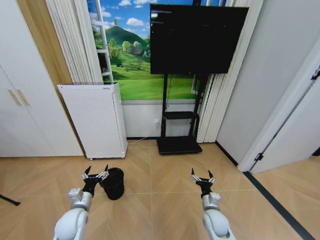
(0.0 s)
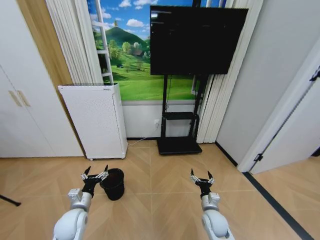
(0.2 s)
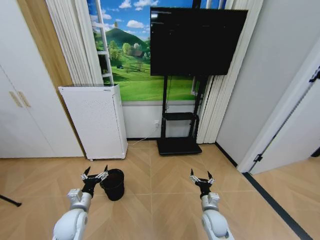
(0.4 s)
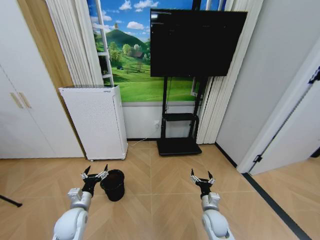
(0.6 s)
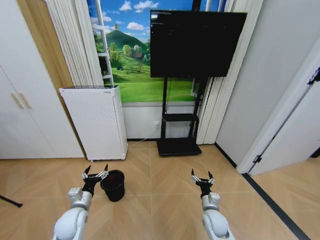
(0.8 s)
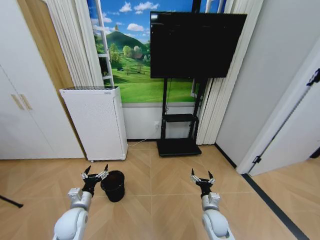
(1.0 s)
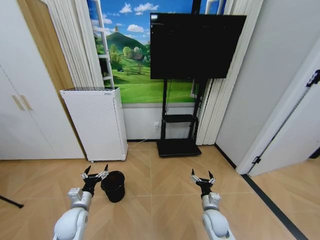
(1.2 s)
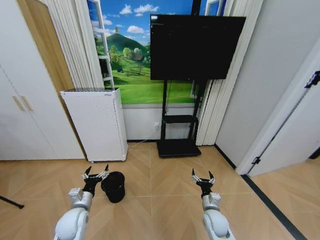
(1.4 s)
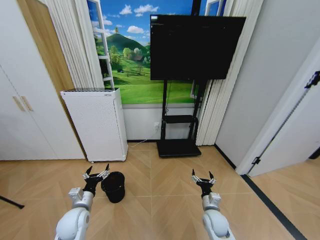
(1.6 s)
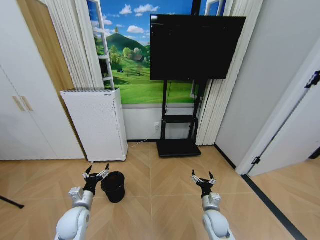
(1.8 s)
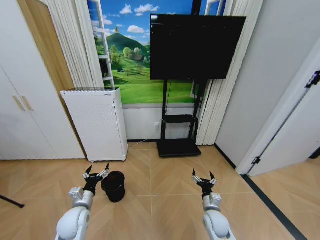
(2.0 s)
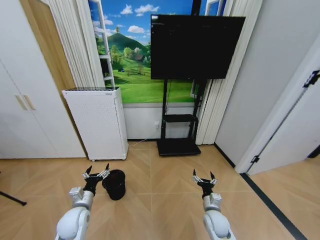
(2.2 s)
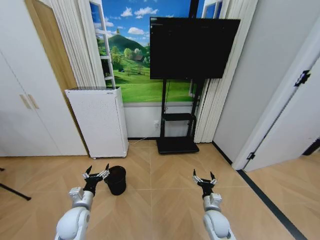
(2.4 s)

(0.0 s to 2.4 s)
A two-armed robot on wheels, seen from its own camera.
Task of the whole recording: Pick up the trash bin and place the garbage on the floor into it.
0.0 s - 2.4 s: Both grippers stay about where they are.

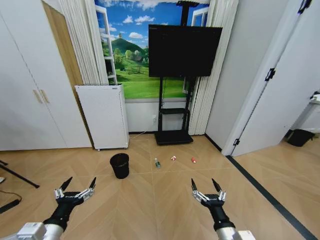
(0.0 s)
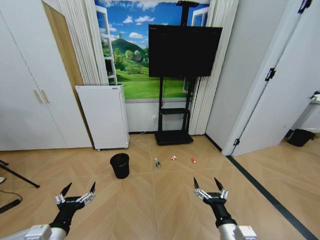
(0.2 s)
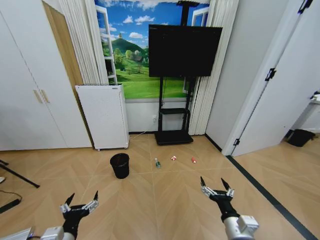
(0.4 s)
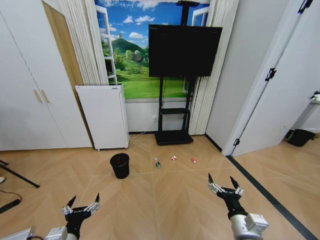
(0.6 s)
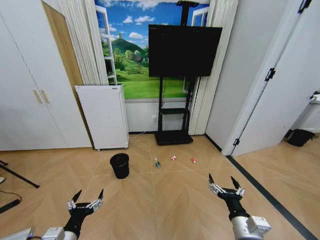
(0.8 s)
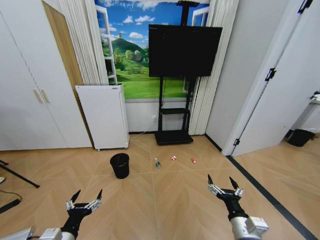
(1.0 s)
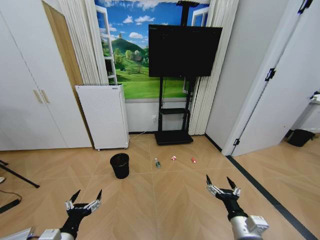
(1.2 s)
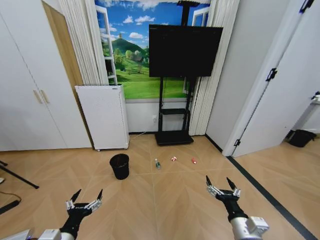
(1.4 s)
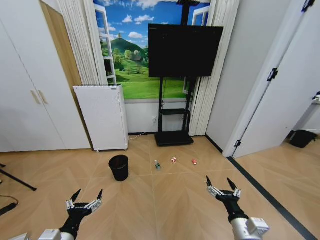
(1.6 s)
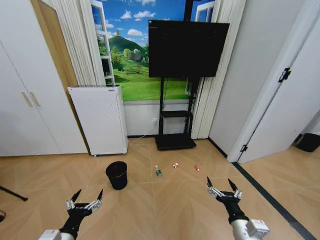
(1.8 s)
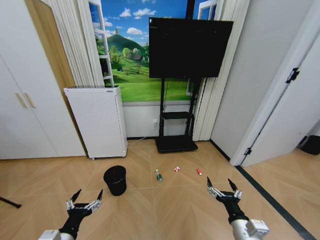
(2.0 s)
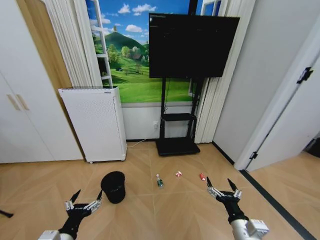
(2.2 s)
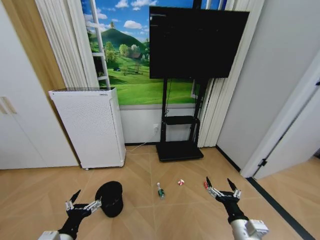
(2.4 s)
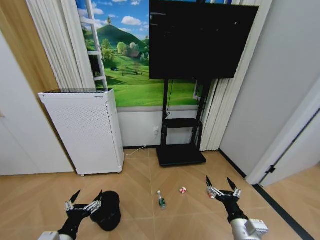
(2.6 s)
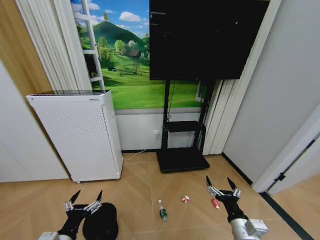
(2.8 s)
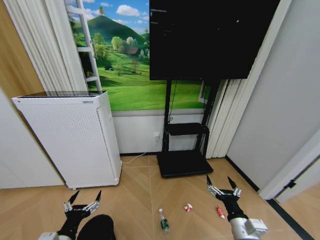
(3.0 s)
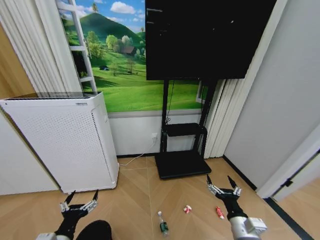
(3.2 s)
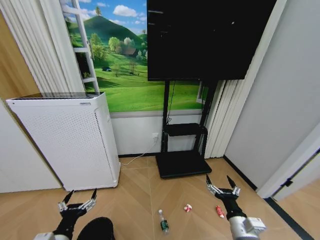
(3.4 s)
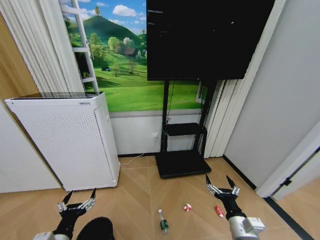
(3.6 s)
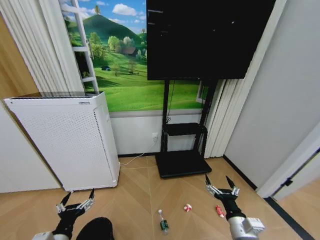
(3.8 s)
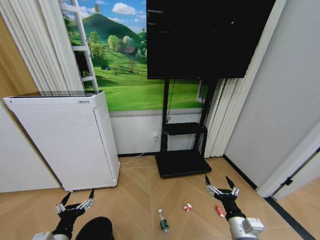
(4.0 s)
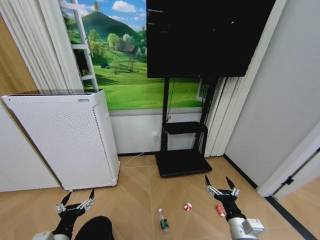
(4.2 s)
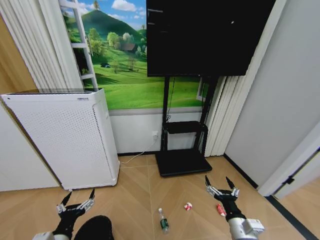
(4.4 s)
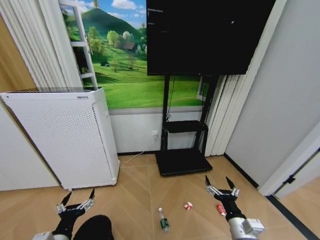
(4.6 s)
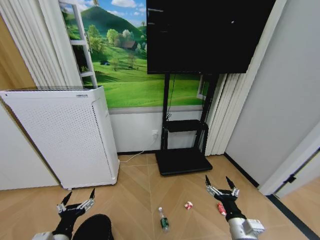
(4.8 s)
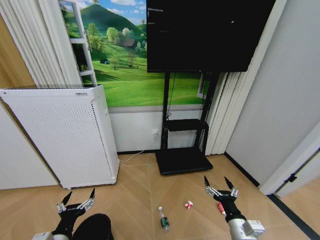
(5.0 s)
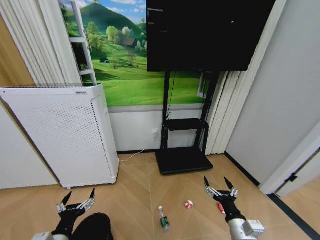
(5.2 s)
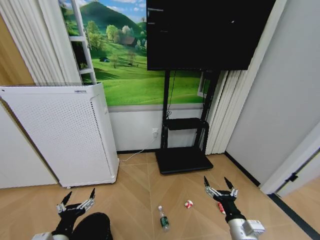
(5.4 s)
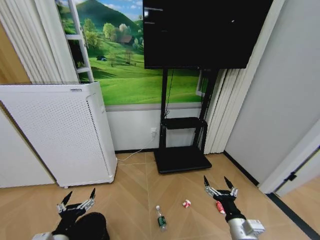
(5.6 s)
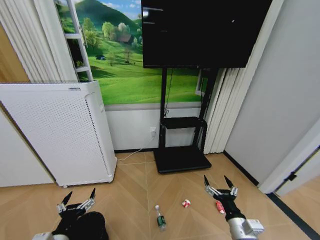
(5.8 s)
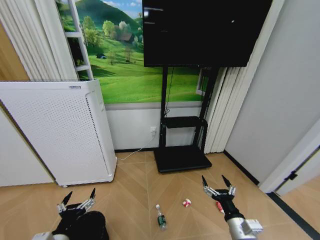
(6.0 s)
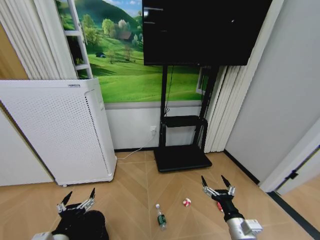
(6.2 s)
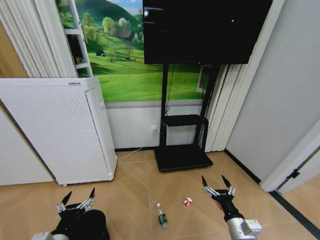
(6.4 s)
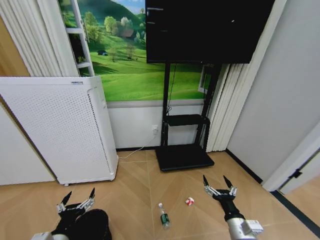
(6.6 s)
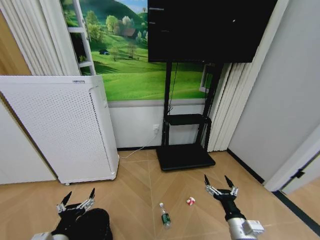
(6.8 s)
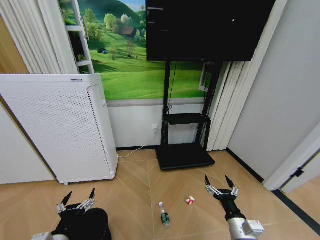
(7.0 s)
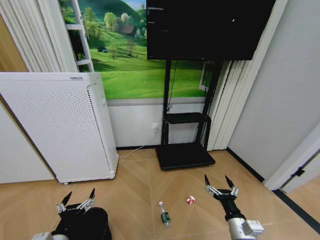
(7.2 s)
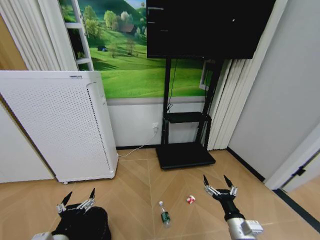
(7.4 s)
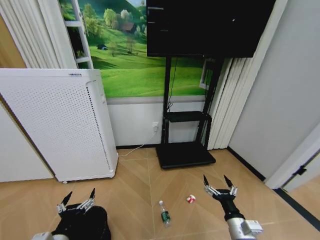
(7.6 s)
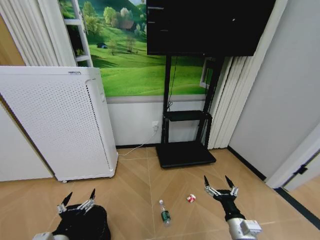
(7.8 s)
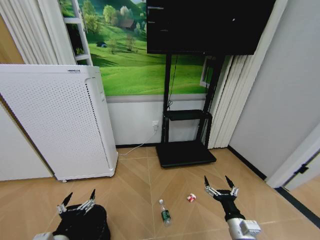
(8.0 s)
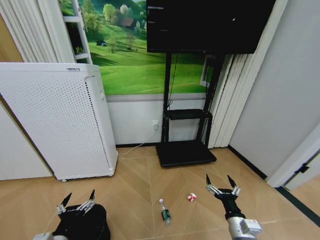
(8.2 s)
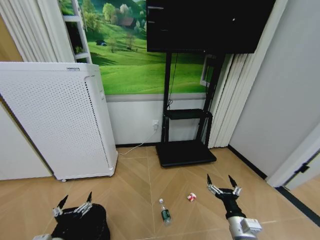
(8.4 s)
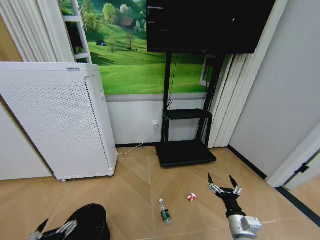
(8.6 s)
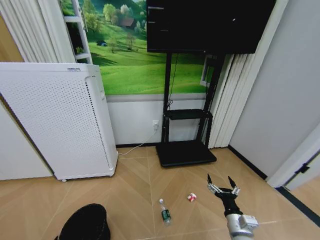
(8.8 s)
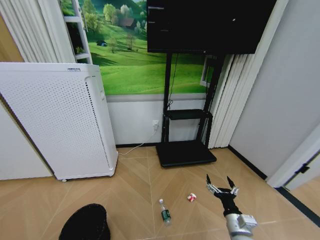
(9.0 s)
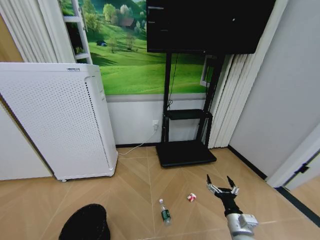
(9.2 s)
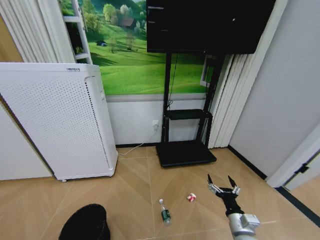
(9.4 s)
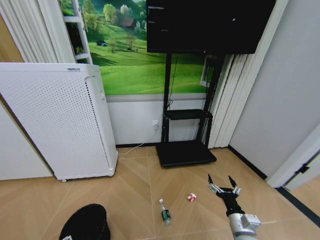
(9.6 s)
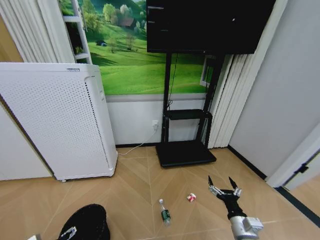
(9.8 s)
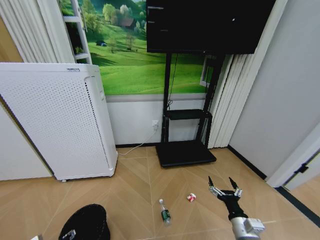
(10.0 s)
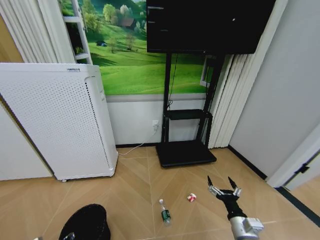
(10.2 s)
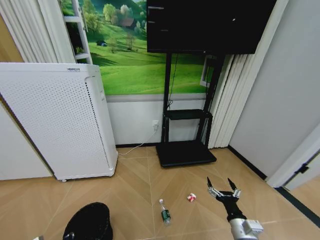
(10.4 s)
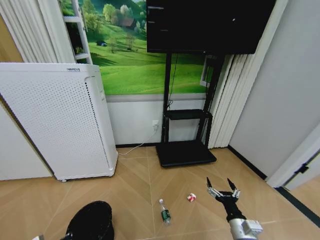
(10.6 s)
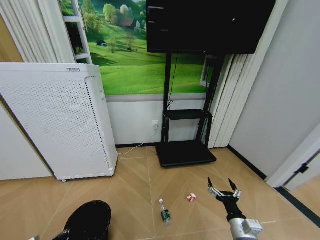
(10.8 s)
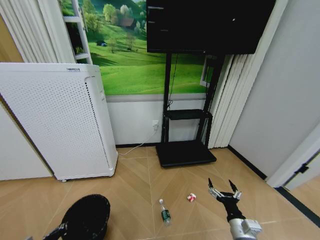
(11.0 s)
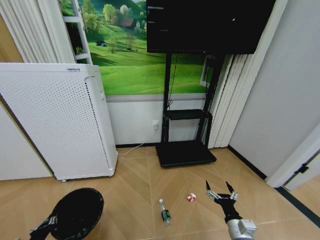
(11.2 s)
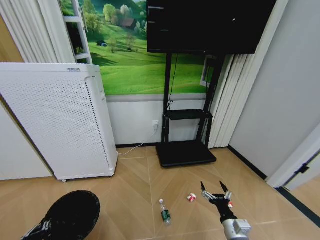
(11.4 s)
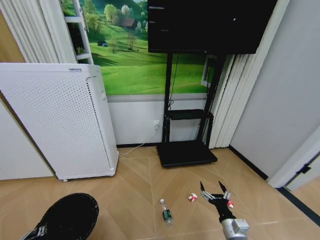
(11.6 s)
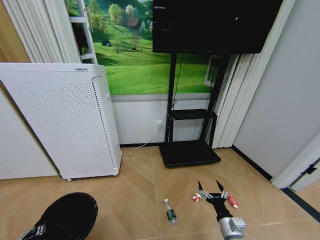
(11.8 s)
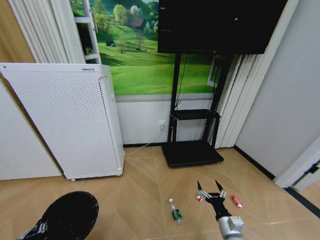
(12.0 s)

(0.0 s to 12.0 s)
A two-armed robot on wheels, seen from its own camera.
Task of the whole recording: Pick up the trash bin and place the garbage on the floor into it.
3.0 s - 4.4 s: The grippers stay close to where they were, moving slightly.
7.6 s - 9.0 s: The left gripper travels backward and to the left by approximately 10 cm.
9.0 s - 10.4 s: The left gripper goes some 15 cm forward and downward, and closes its fingers.
10.4 s - 12.0 s: The right gripper changes place by approximately 5 cm. Meanwhile the left gripper travels upward and backward by approximately 10 cm.

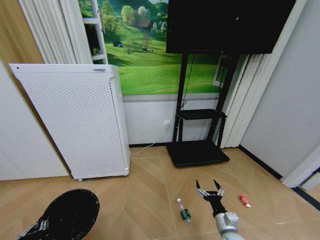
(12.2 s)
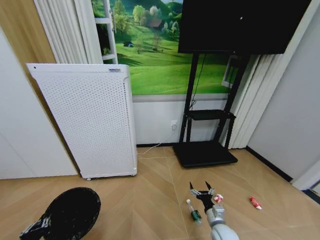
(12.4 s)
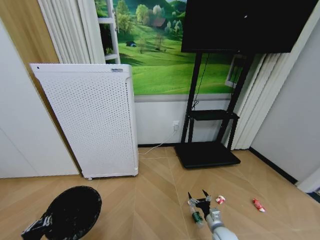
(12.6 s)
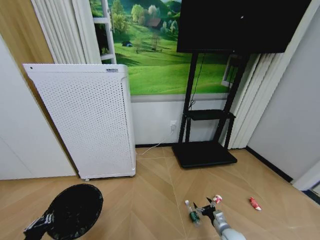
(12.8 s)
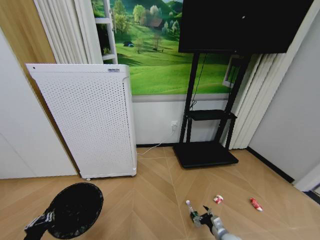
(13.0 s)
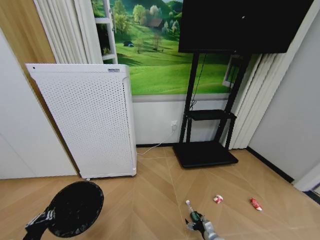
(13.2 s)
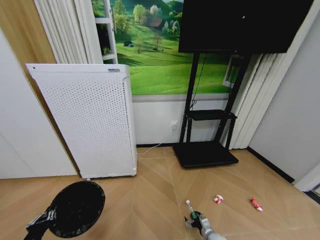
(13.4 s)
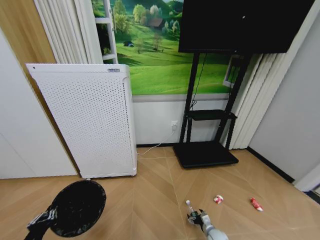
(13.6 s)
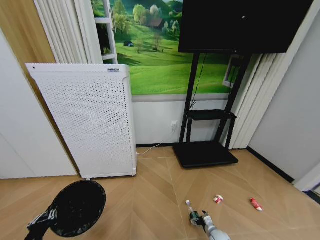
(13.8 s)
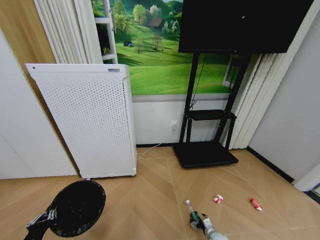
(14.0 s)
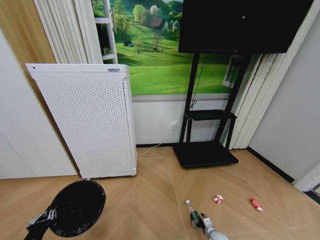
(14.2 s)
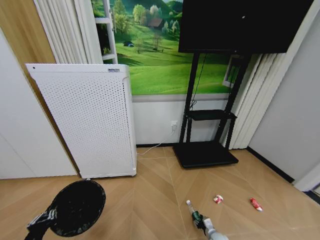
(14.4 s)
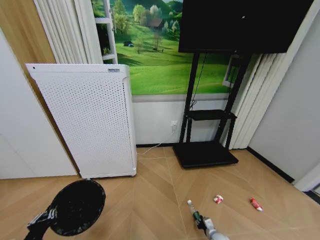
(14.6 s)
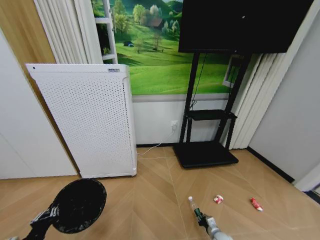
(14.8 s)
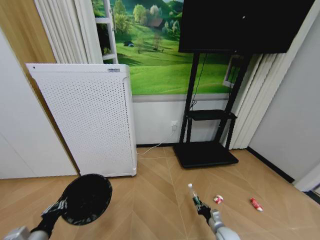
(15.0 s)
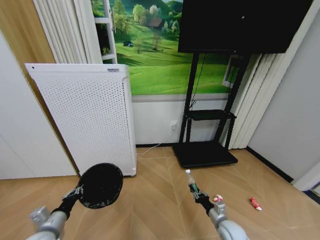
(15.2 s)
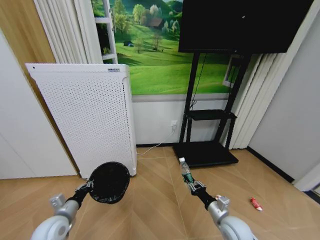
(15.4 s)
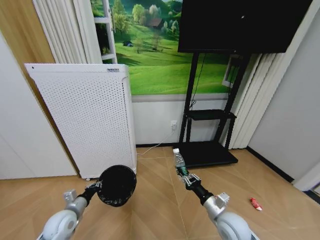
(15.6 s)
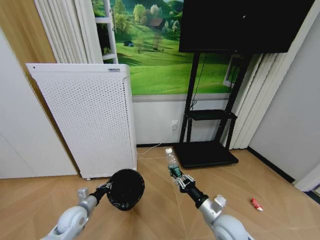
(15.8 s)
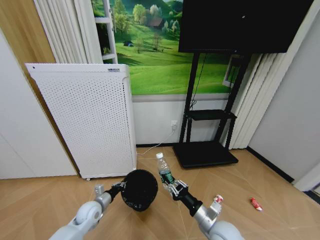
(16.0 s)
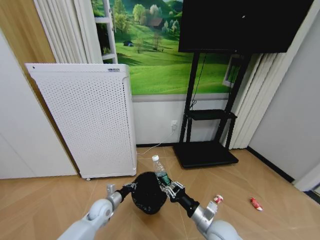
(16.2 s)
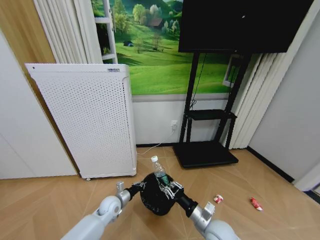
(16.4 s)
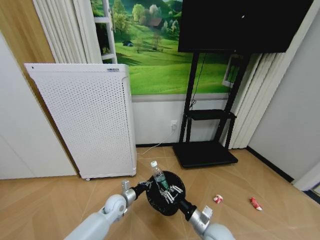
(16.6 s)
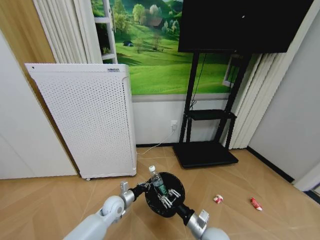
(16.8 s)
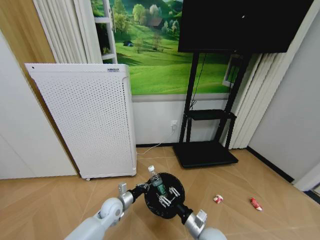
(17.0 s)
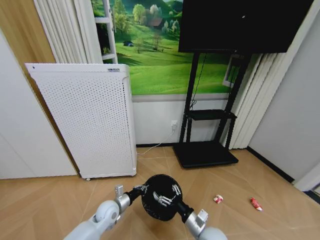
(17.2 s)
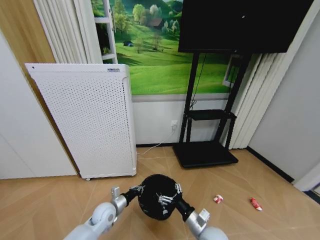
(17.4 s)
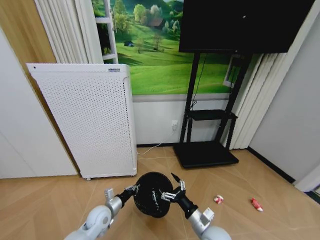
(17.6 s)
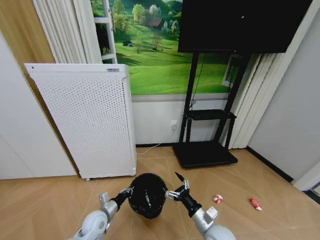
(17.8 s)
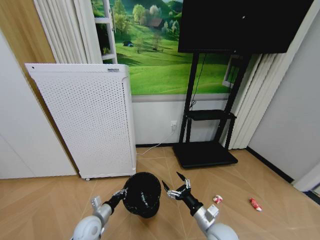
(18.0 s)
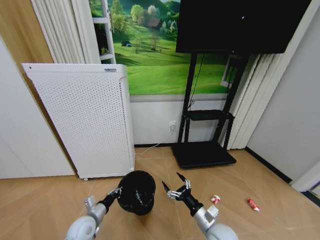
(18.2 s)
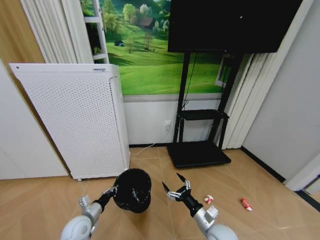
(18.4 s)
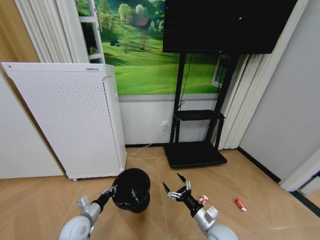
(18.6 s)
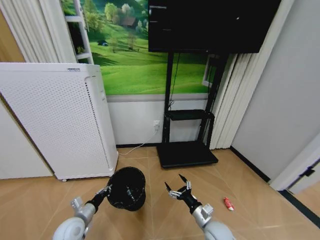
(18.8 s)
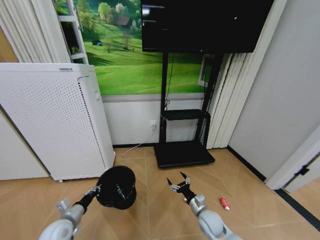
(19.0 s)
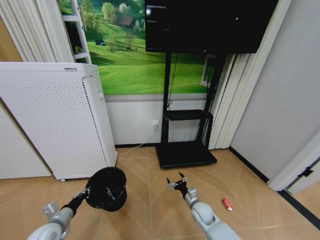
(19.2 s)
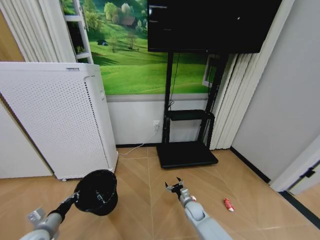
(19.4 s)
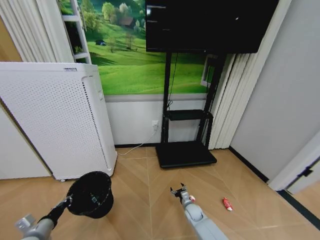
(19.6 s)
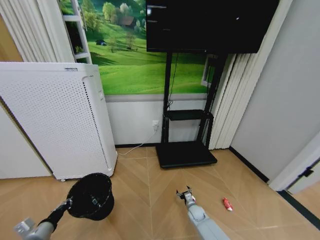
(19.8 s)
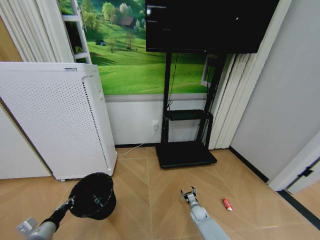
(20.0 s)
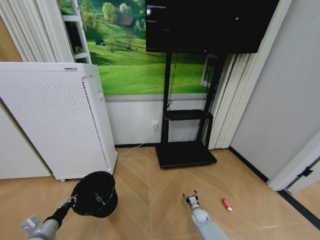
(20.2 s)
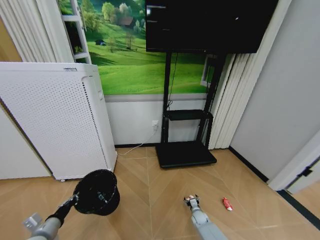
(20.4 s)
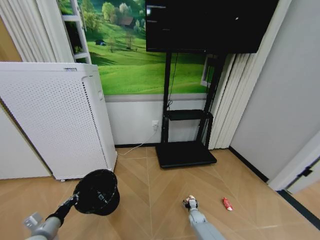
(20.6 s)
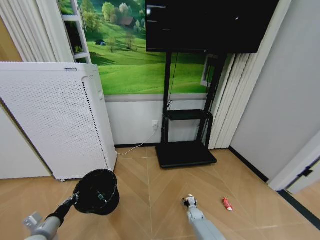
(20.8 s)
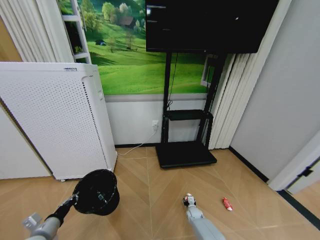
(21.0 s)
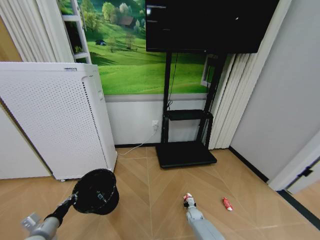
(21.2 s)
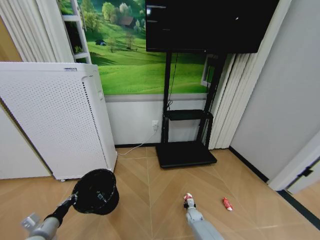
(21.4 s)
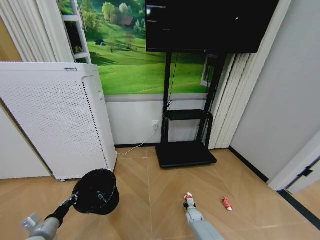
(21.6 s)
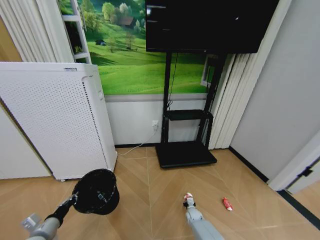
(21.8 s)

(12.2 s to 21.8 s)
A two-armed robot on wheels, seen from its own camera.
Task of the whole recording: Pick up the trash bin and place the garbage on the floor into it.
12.2 s - 13.8 s: The right gripper is displaced downward by approximately 20 cm.
13.8 s - 15.4 s: The right gripper travels upward by about 25 cm, and closes up; the left gripper is displaced forward by about 15 cm.
15.4 s - 17.0 s: The right gripper is displaced to the left by about 10 cm, while the left gripper shifts approximately 20 cm to the right and forward.
17.0 s - 18.6 s: The right gripper opens. The left gripper heads to the left and backward, covering about 15 cm.
18.6 s - 20.2 s: The right gripper moves downward and forward, approximately 30 cm; the left gripper is displaced to the left and backward by approximately 15 cm.
20.2 s - 21.8 s: The right gripper closes.
